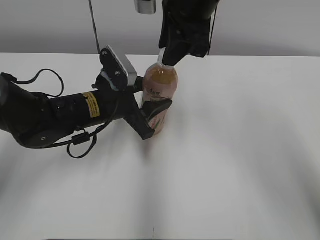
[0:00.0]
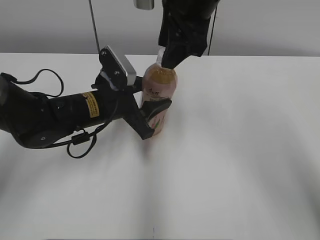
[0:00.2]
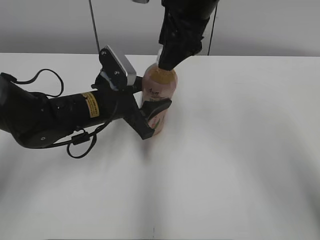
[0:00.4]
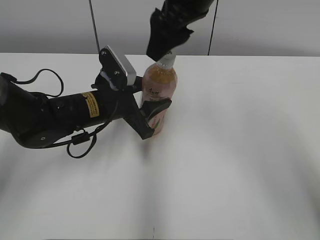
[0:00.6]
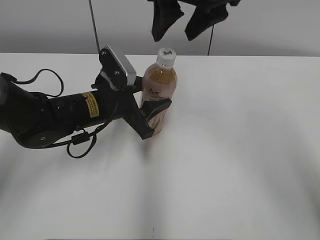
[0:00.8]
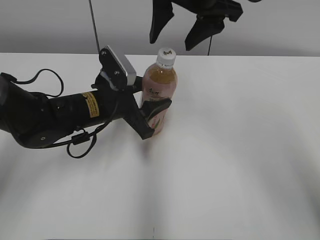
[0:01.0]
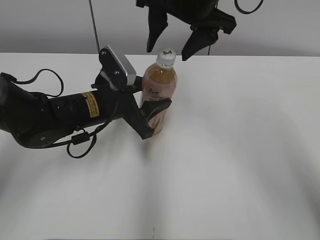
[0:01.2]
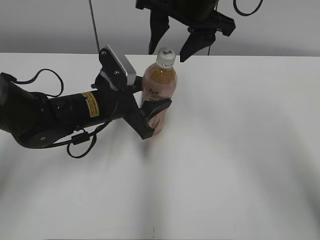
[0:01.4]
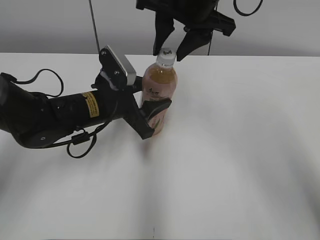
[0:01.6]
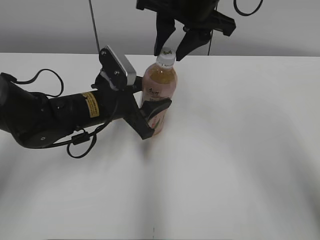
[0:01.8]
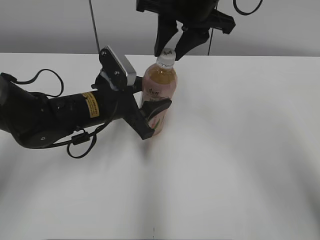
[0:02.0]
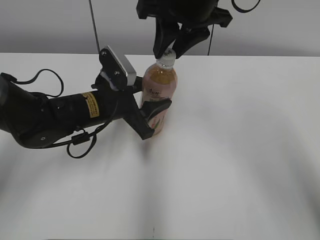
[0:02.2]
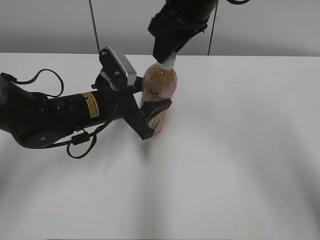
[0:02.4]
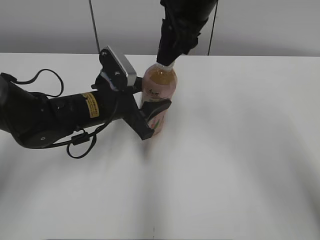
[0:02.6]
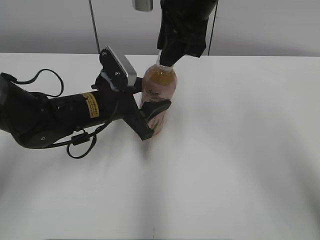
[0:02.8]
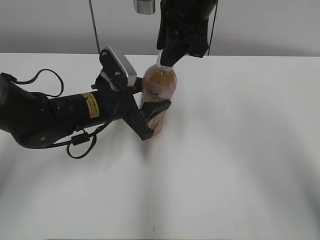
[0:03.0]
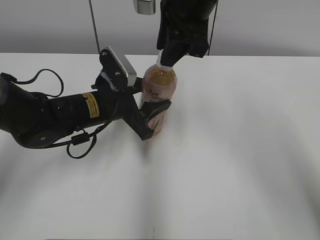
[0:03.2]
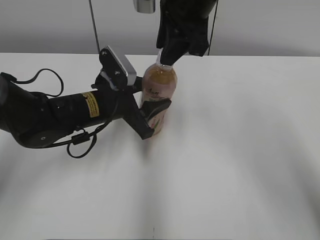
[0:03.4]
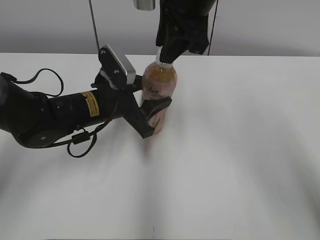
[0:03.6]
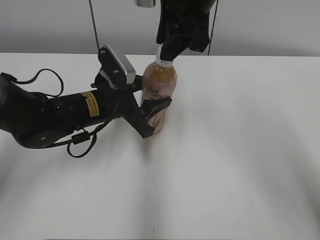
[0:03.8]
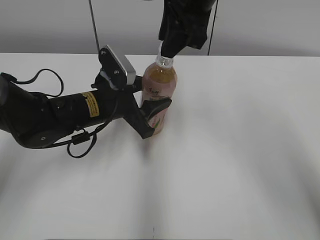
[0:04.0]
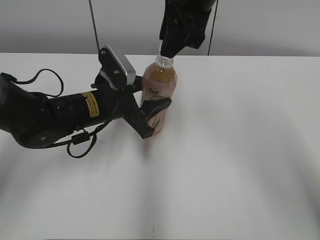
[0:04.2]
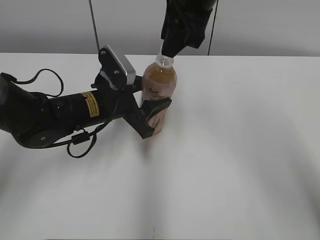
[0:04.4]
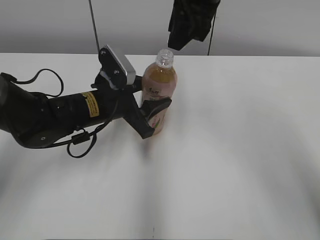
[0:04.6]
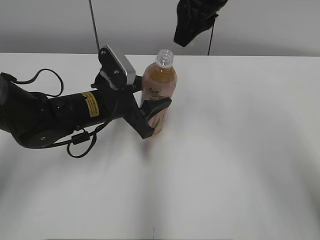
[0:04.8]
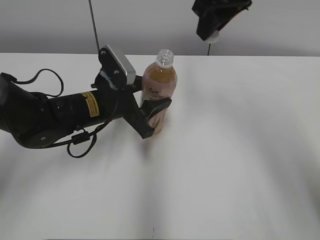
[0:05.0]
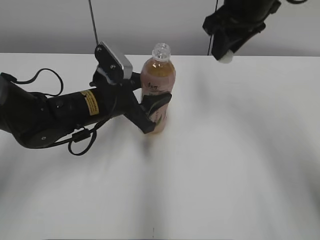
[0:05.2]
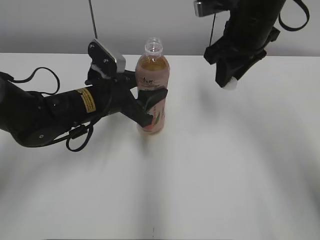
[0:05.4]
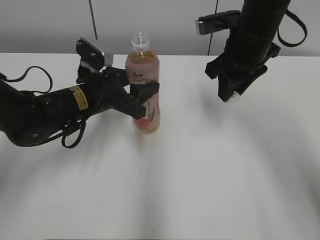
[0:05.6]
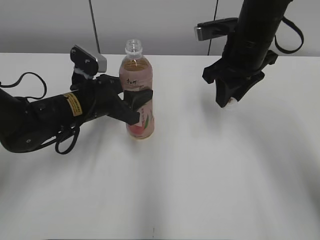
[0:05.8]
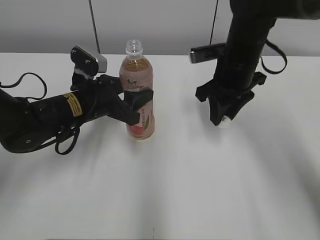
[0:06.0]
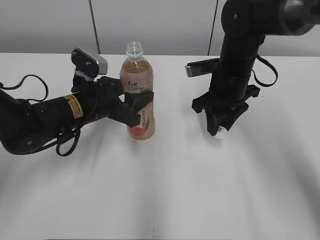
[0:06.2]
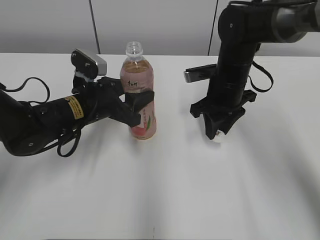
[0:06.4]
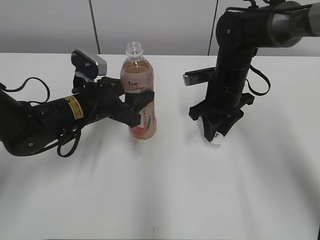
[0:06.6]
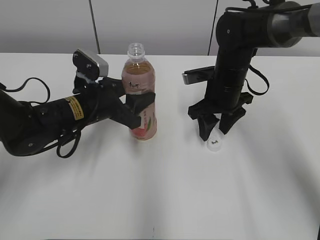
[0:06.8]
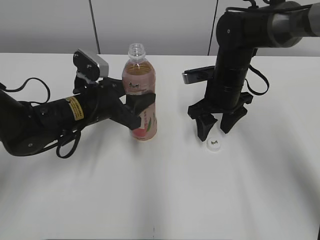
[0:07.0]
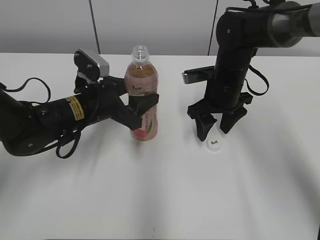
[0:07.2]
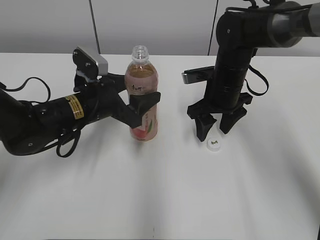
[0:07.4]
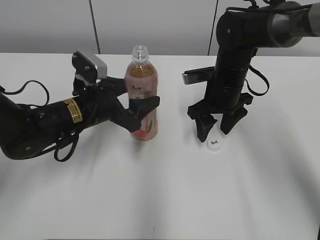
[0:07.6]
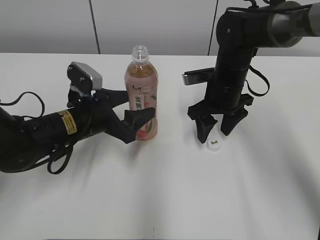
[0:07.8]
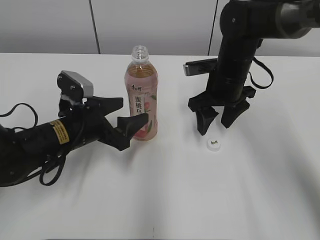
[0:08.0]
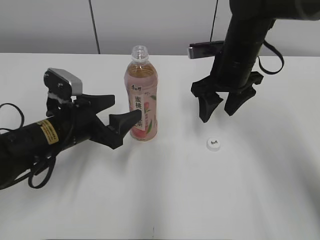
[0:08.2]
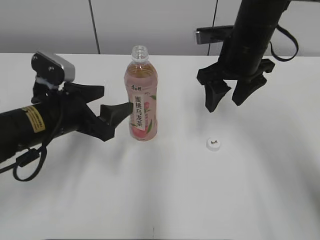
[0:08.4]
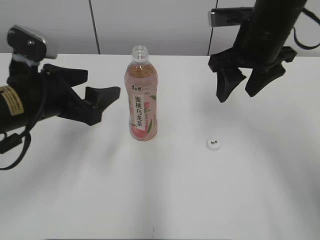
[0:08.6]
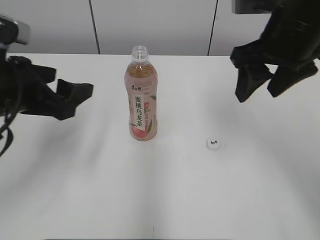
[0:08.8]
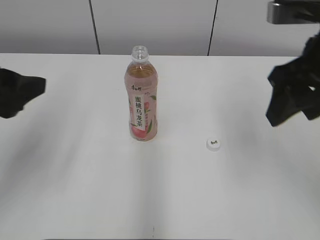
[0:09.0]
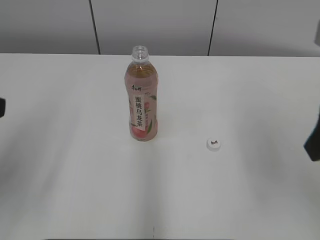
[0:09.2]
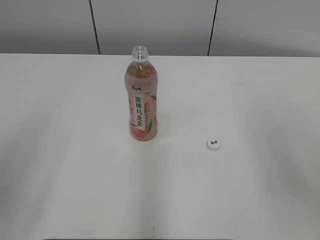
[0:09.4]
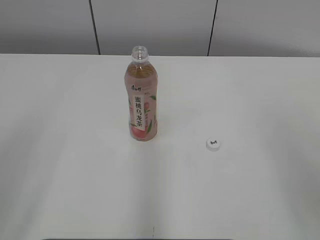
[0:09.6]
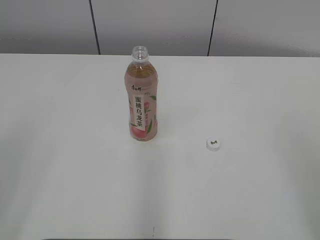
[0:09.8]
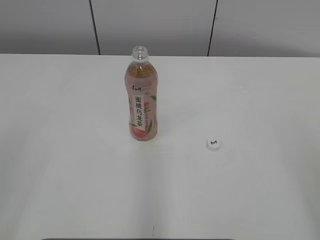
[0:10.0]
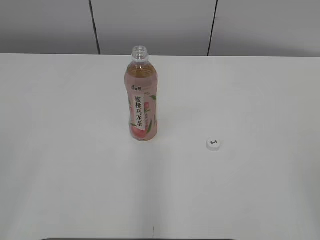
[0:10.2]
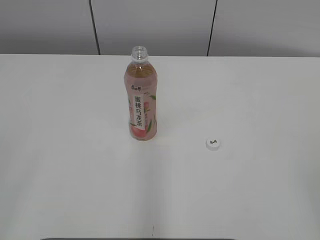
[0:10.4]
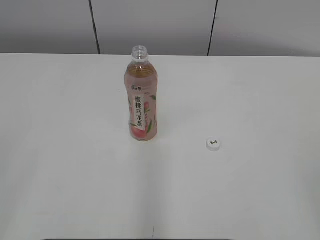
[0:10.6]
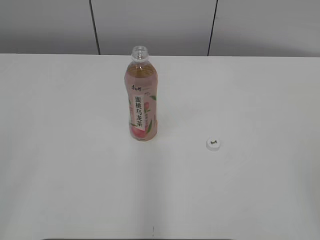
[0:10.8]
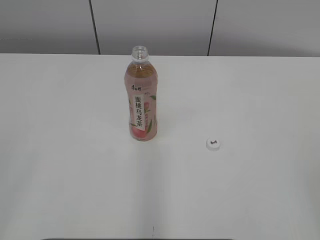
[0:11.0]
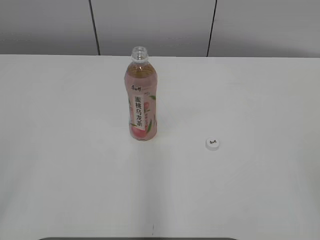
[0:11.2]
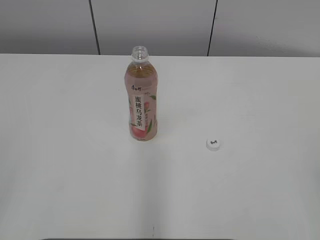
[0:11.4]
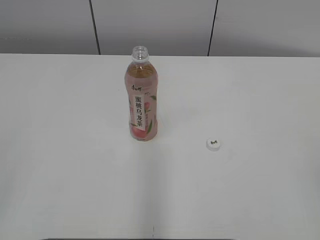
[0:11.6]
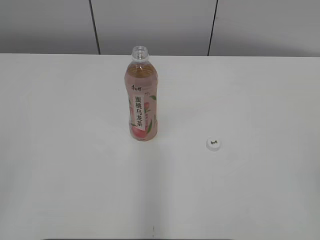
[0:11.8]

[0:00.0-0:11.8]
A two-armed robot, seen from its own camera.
Step, 0:04.8 to 0:07.0: Place the bottle cap on the right.
Step, 0:07.2 to 0:08.0: Place the Peach Oolong Tea with the left hand.
0:00.0 to 0:01.4: The right gripper opens.
0:01.4 to 0:03.0: The right gripper closes its fingers.
0:03.0 to 0:04.4: The grippers stay close to where they were, moving slightly.
0:04.4 to 0:06.0: The right gripper is displaced downward and to the right by some 15 cm.
0:06.0 to 0:07.4: The right gripper shifts approximately 5 cm downward, and opens. The left gripper opens up.
0:07.4 to 0:08.8: The left gripper moves upward, backward and to the left, about 15 cm; the right gripper is displaced upward and backward by some 20 cm.
0:08.8 to 0:10.4: The left gripper goes some 25 cm backward and to the left. The right gripper is displaced backward and to the right by about 35 cm, and closes.

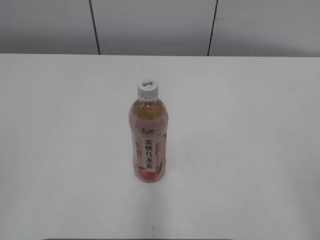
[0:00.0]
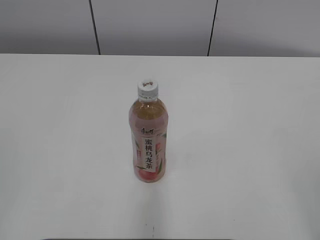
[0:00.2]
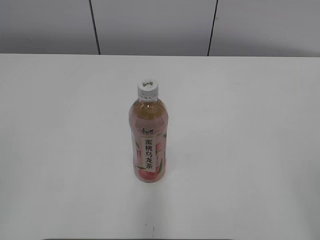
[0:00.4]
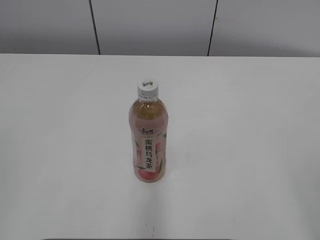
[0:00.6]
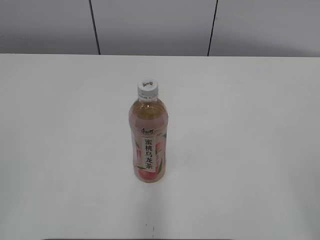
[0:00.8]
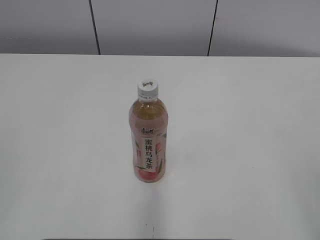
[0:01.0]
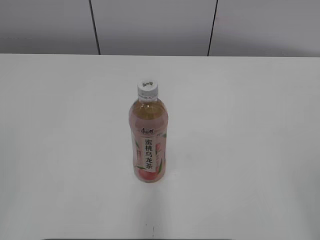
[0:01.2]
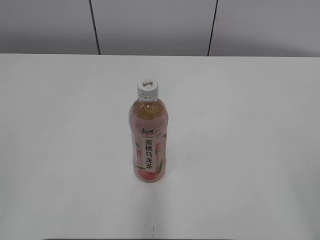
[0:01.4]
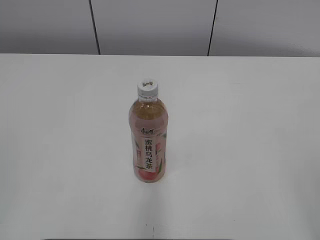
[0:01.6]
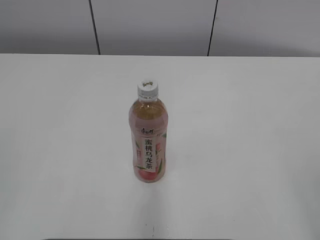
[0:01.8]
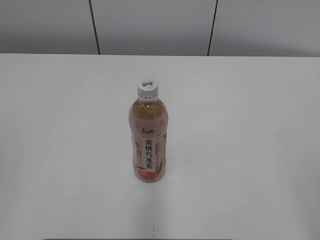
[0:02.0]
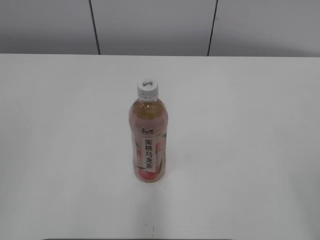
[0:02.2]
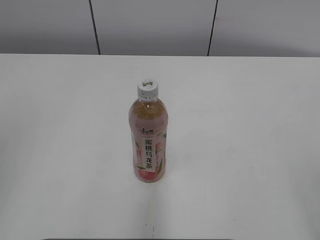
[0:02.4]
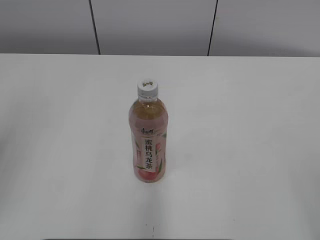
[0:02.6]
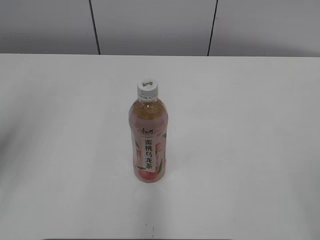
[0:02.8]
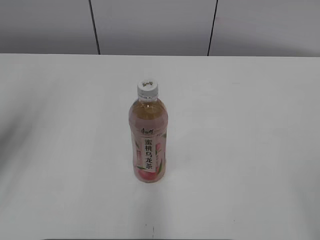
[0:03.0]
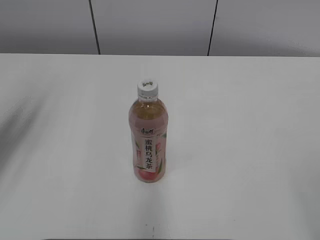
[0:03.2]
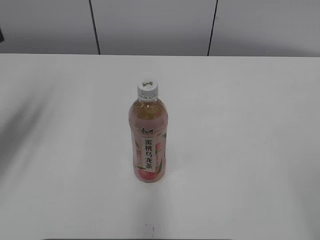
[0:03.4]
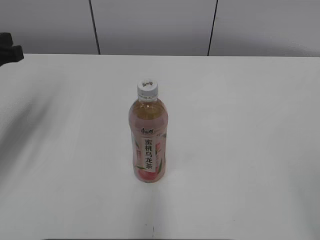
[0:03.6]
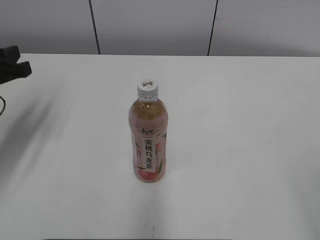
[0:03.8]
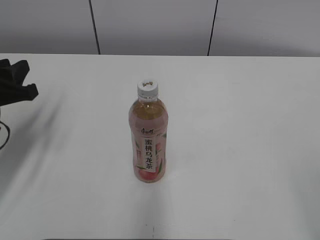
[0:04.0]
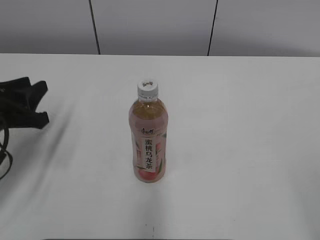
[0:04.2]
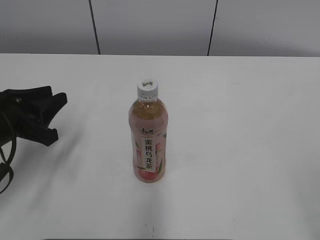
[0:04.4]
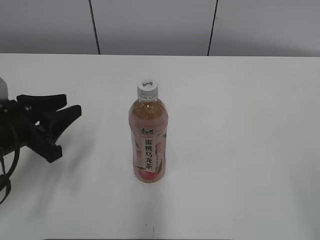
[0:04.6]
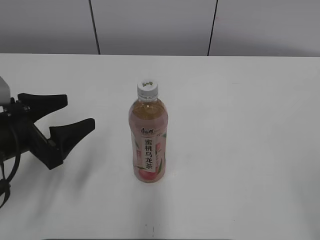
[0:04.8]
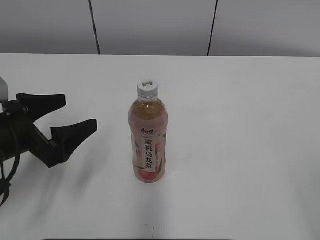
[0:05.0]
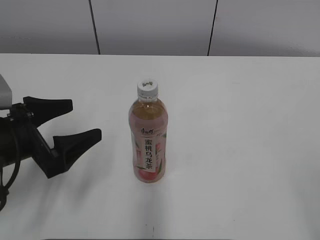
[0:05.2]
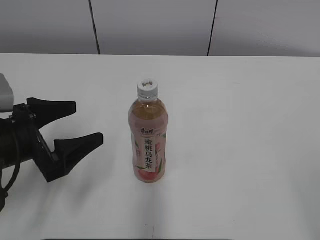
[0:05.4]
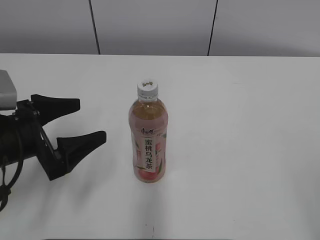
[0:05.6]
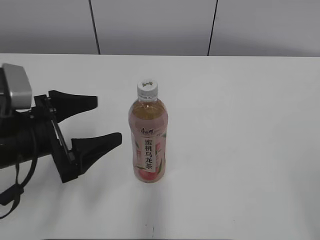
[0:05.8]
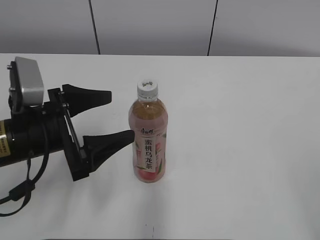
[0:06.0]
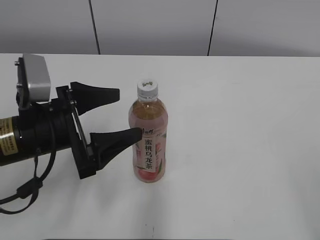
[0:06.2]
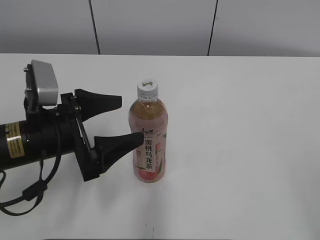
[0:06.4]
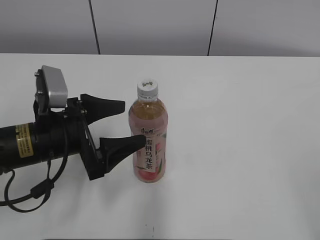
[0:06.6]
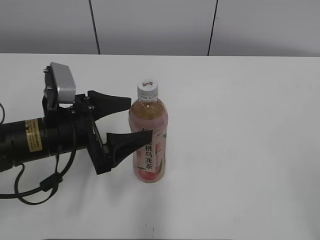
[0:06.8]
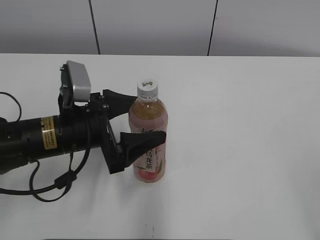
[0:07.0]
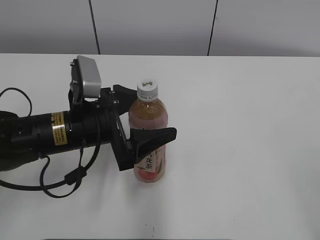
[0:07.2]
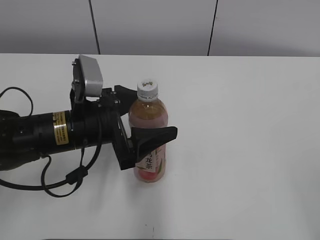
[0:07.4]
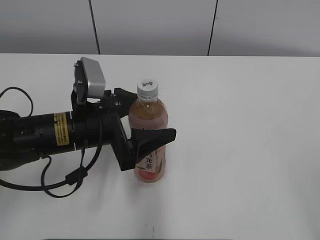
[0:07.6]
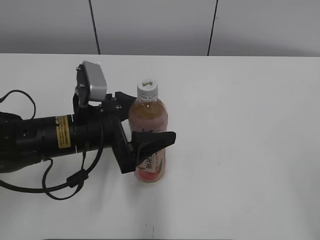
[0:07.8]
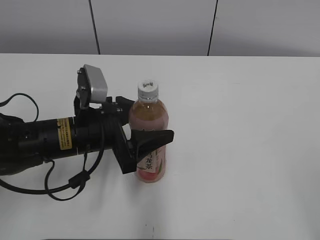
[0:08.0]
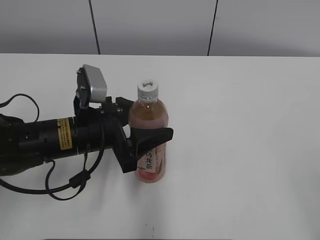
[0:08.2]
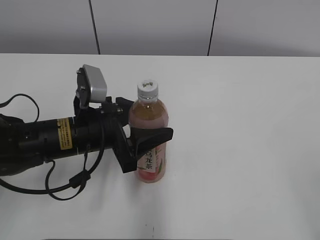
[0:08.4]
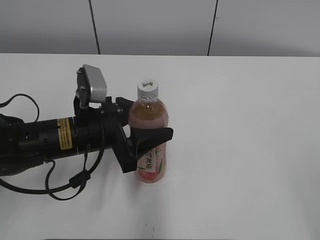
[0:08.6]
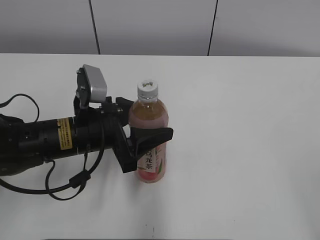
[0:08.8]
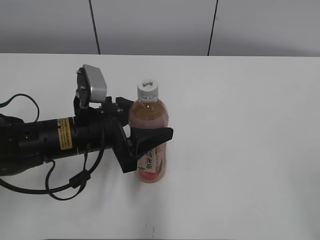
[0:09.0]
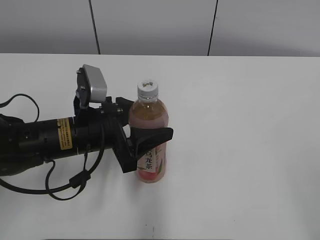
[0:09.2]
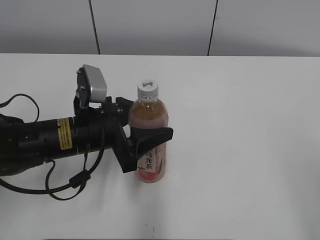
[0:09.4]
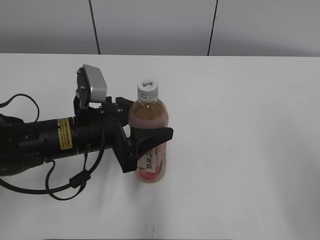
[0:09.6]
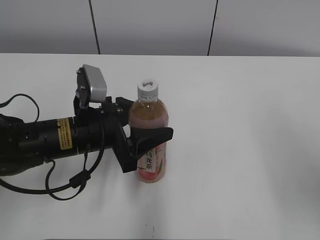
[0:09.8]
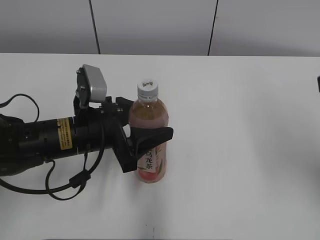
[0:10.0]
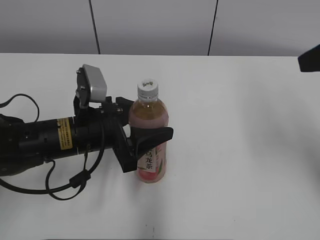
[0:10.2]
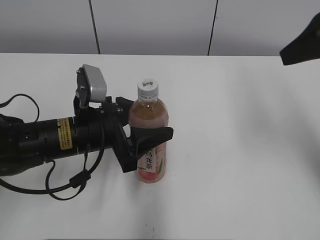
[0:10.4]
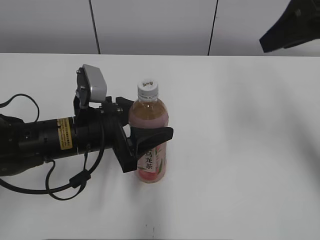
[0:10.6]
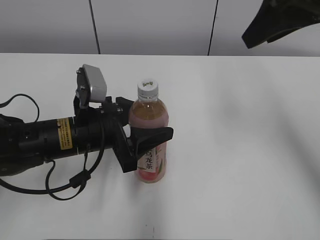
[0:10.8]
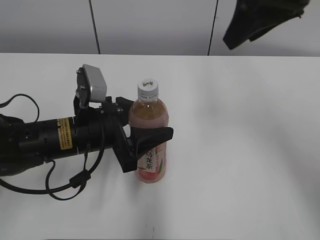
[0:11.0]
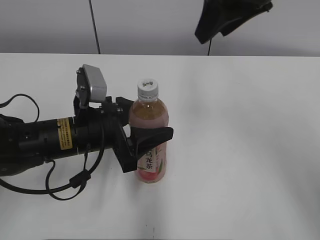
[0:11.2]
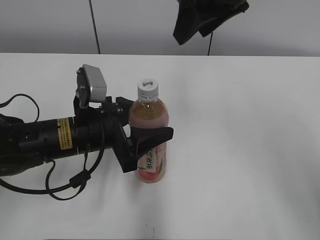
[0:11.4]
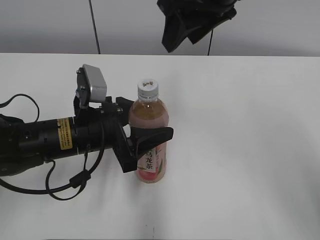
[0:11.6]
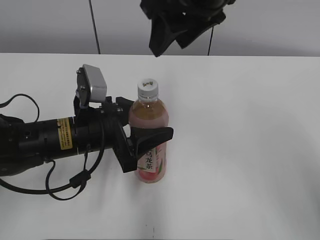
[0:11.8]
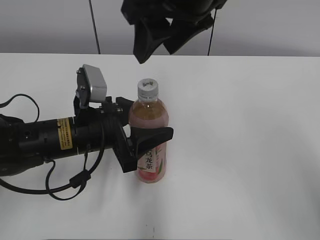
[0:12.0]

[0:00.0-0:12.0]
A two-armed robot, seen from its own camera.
Step, 0:00.0 to 0:08.0: Grab the Peach Oolong Tea with the left hand.
0:01.6 to 0:03.0: The left gripper heads forward, covering roughly 20 cm.
0:03.0 to 0:04.4: The left gripper heads downward, covering approximately 15 cm.
0:04.4 to 0:06.0: The left gripper goes approximately 5 cm to the right, and opens.
0:06.0 to 0:07.6: The left gripper moves to the right, approximately 5 cm.
0:07.6 to 0:09.0: Both grippers stay put.
0:09.0 to 0:10.4: The right gripper heads forward, covering approximately 25 cm, and closes up.
0:10.4 to 0:12.0: The right gripper travels to the left by about 20 cm.
